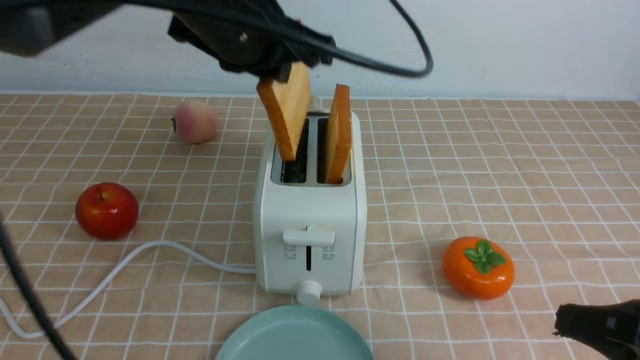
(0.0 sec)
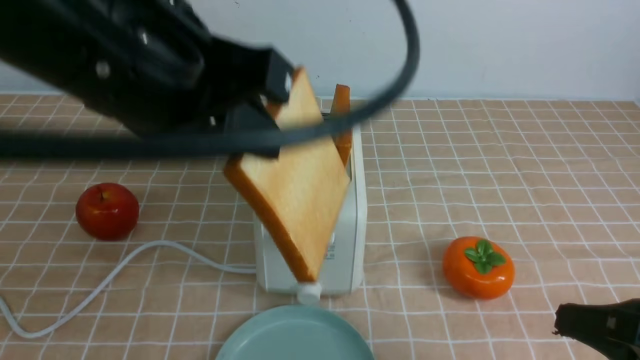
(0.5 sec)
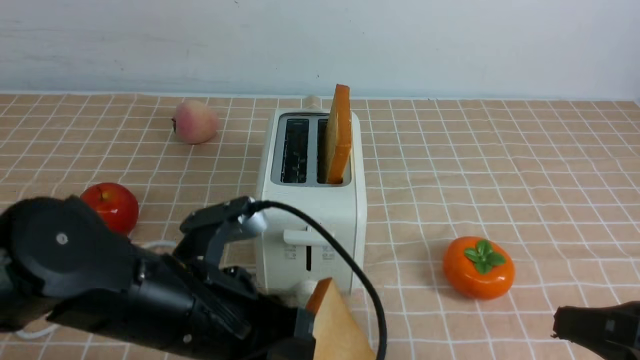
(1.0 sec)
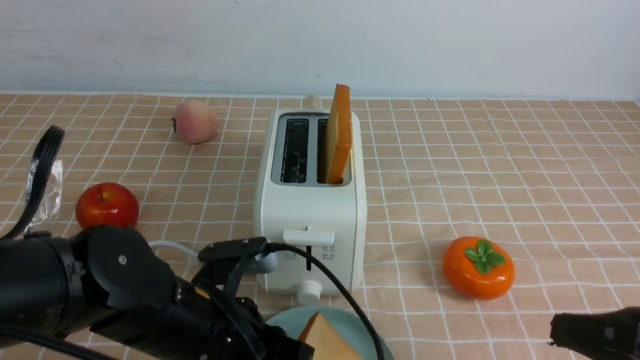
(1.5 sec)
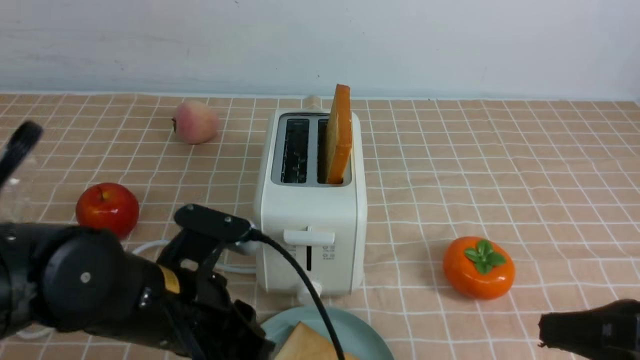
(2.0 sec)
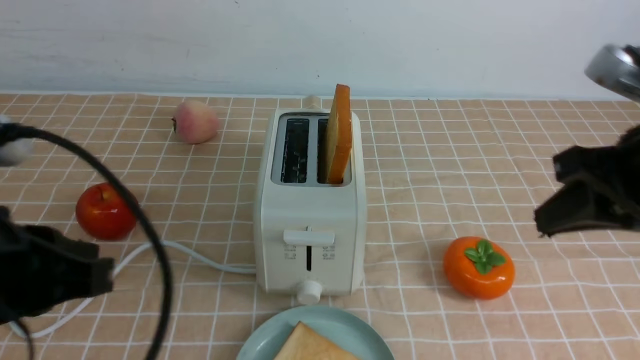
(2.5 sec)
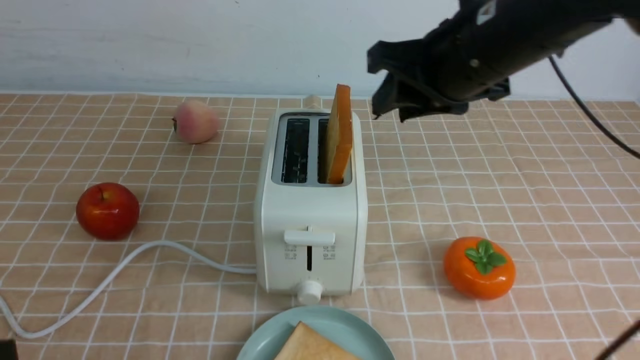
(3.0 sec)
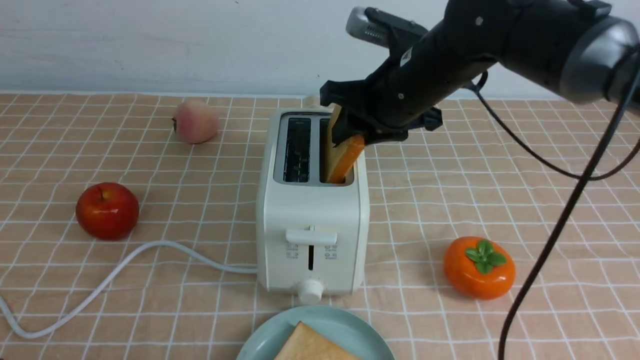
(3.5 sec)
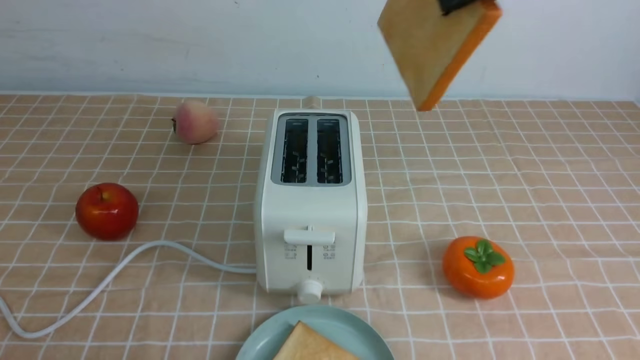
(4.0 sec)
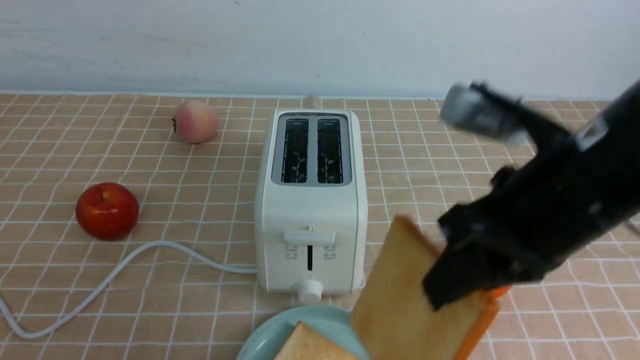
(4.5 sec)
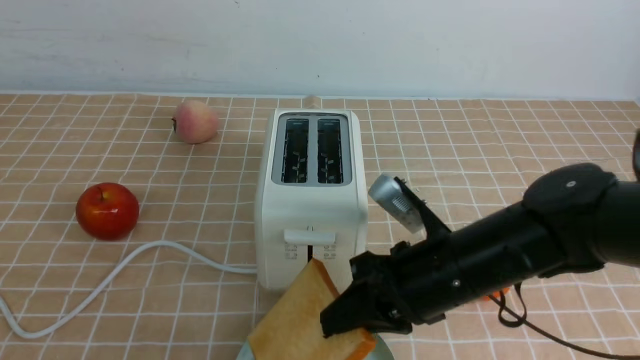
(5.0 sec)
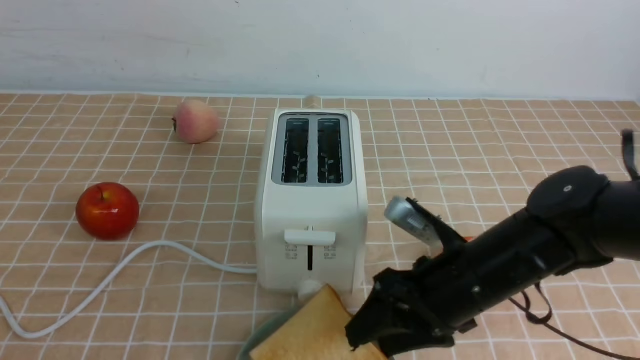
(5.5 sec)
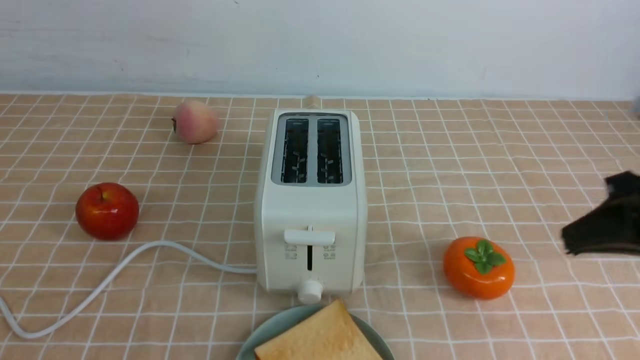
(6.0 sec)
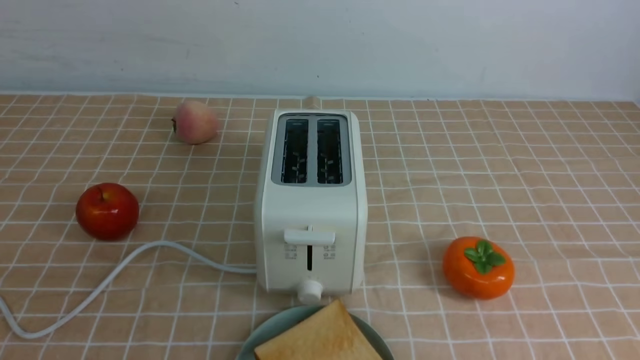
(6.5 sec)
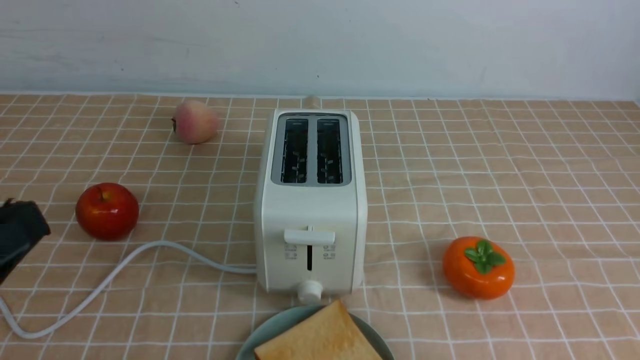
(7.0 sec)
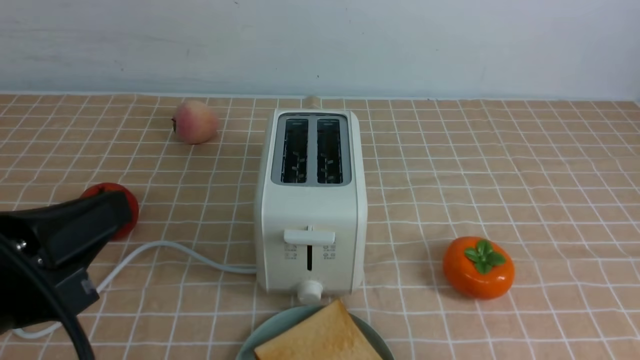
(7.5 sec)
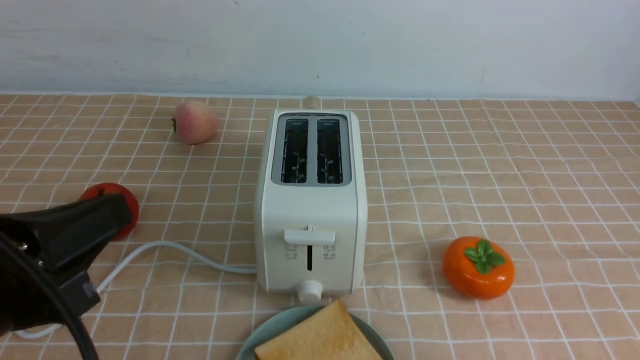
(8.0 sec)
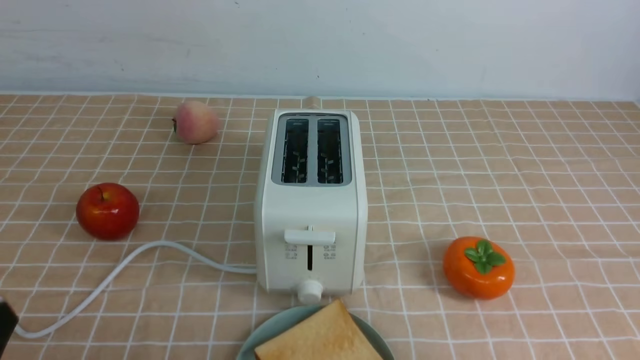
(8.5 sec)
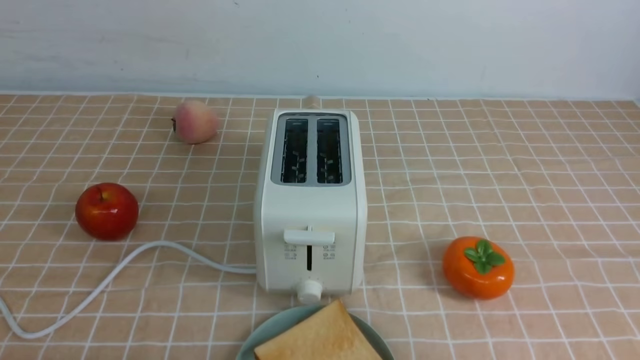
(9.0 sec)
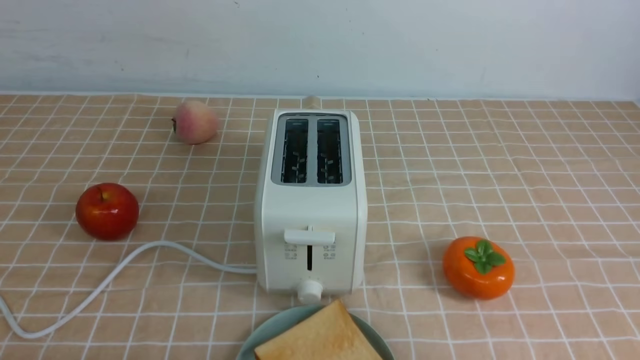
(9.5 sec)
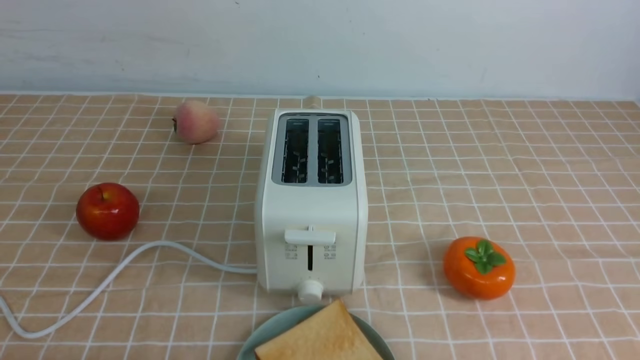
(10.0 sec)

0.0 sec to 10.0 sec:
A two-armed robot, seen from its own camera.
Task of the whole recording: take toasted bread from bread machine on light coffee tablecloth place on plate.
Step, 0.5 sec to 1.5 sec: use the left arm to put a slice of bread into the empty plate.
Step, 2.0 sec to 3.5 sec: use the right arm to take out a slice of bread.
Step, 4.0 sec to 5.5 sec: use the right arm to put a slice of bread into the plate.
0.0 sec to 2.0 sec: The left gripper moves downward and backward, about 20 cm.
2.0 sec to 4.0 sec: The right gripper goes about 25 cm upward, forward and to the left, and opens and closes again. Meanwhile the left gripper heads backward and to the left, covering about 20 cm, and closes its fingers.
4.0 sec to 6.0 sec: The right gripper travels downward and to the right by roughly 20 cm, and opens and closes again.
6.0 sec to 8.0 sec: The left gripper goes approximately 5 cm forward and to the right. Meanwhile the right gripper goes about 15 cm backward.
8.0 sec to 10.0 sec: The left gripper goes some 15 cm downward.

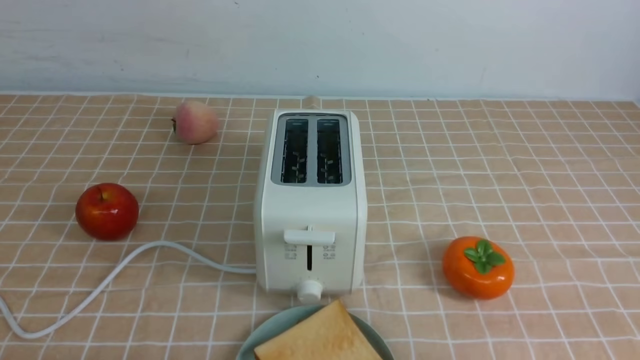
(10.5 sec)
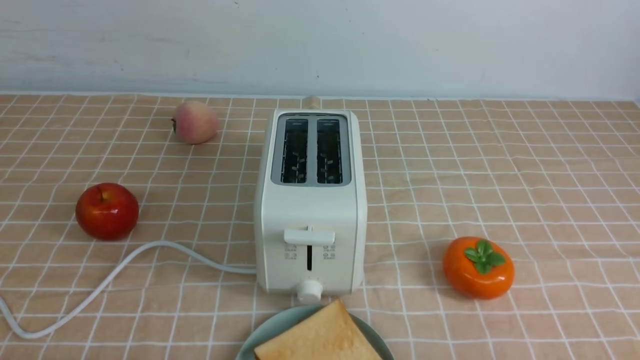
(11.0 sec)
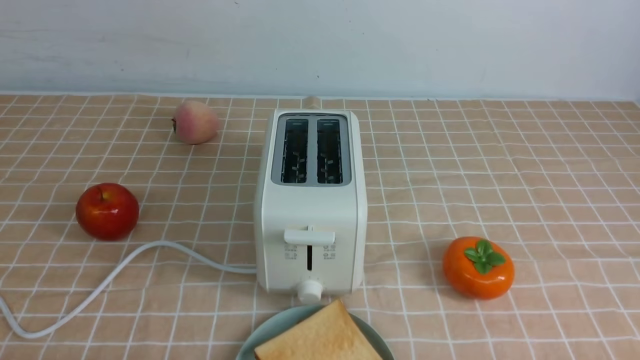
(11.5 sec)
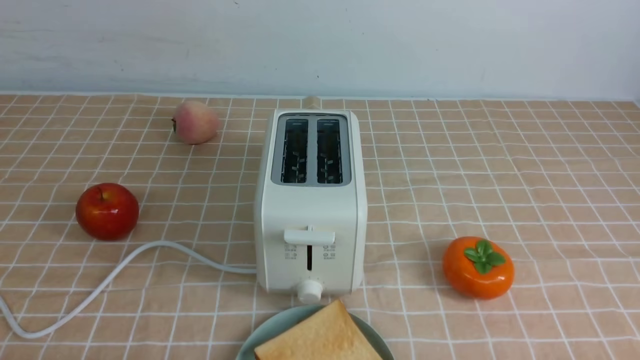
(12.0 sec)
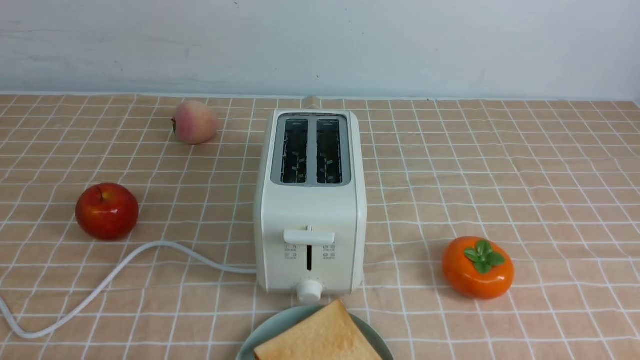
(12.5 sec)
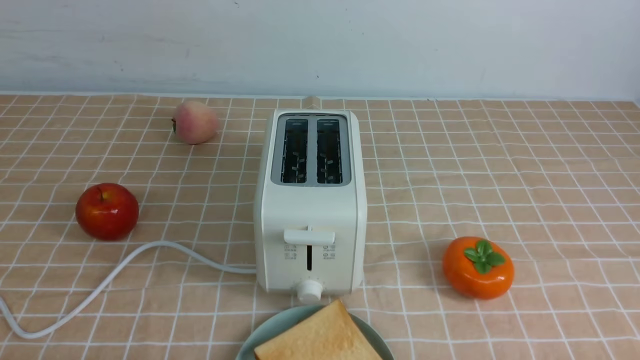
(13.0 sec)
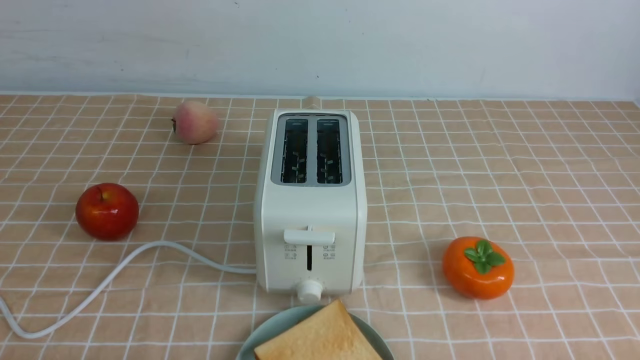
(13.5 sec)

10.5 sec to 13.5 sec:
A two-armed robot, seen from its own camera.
Task of the whole recording: take toasted bread from bread machine on light coffee tablecloth place on plate.
12.0 sec to 13.5 sec: Both grippers stay put.

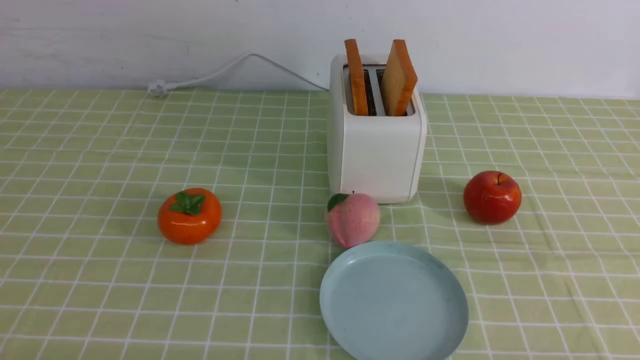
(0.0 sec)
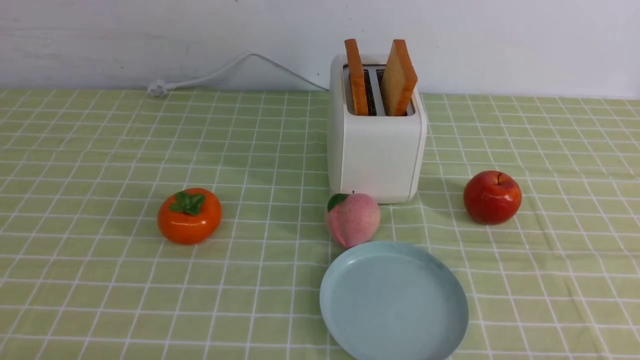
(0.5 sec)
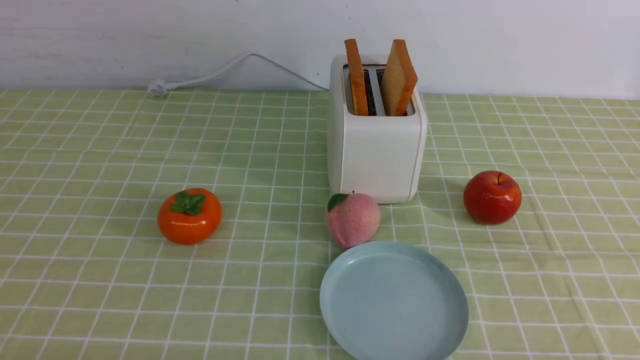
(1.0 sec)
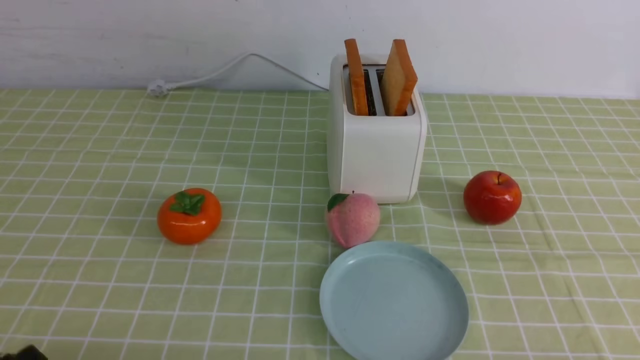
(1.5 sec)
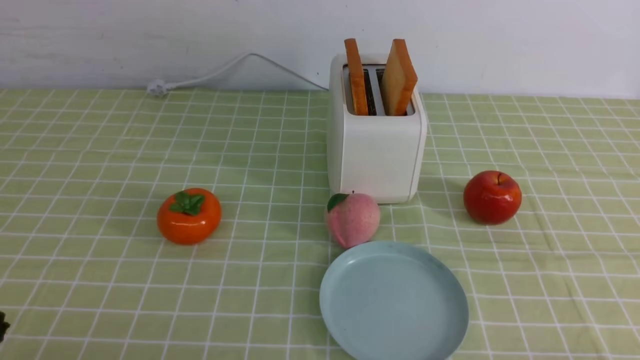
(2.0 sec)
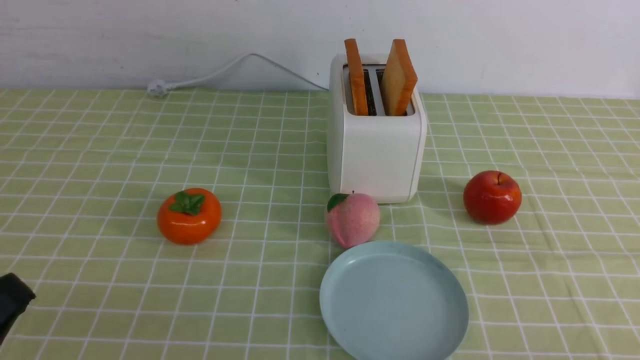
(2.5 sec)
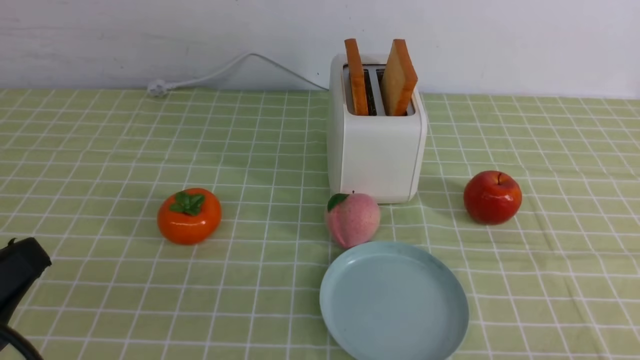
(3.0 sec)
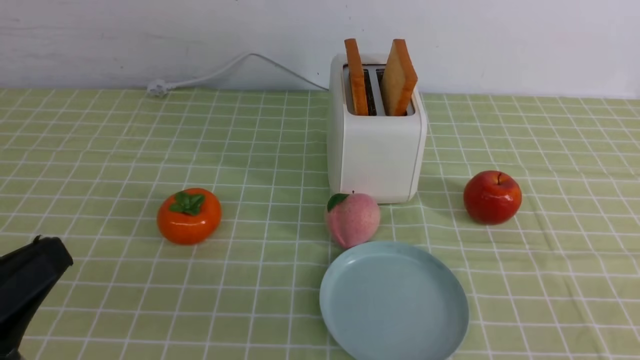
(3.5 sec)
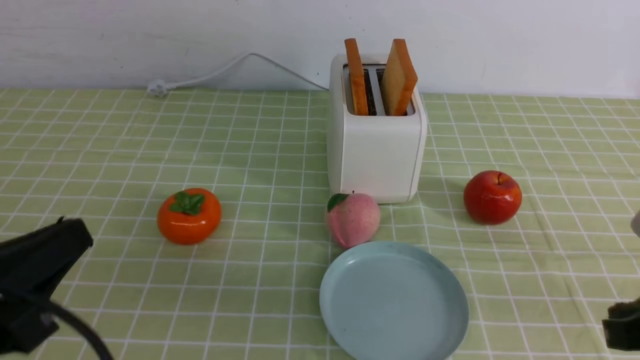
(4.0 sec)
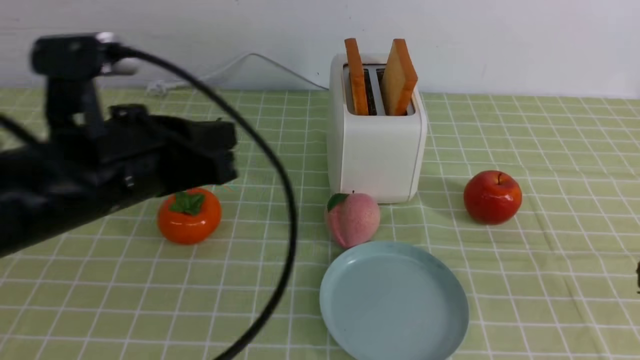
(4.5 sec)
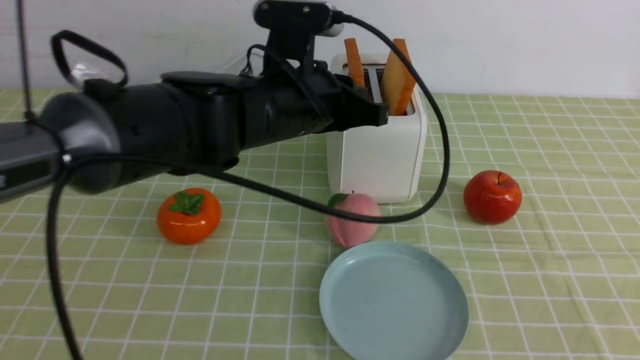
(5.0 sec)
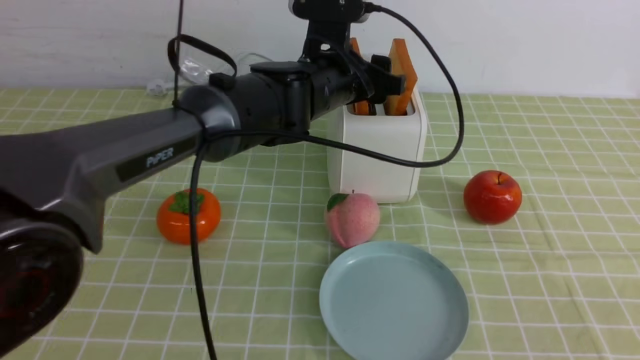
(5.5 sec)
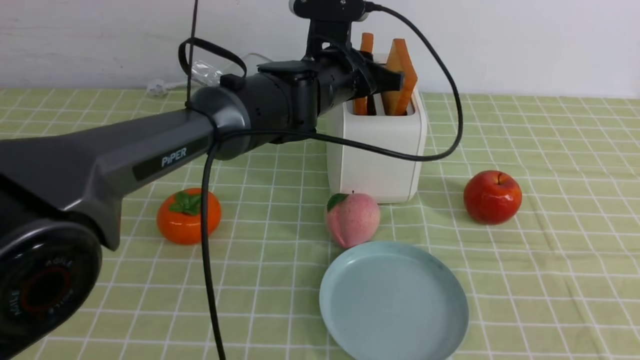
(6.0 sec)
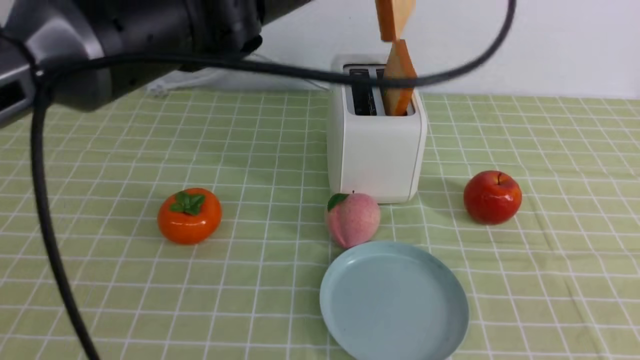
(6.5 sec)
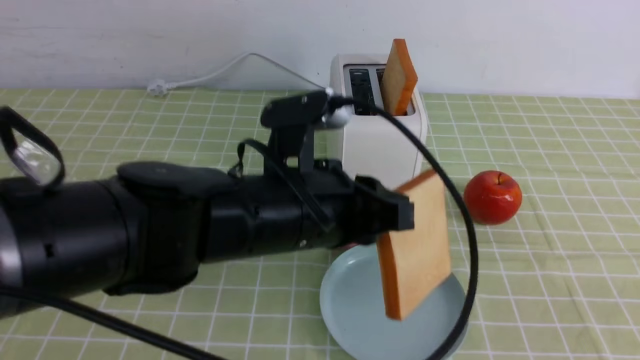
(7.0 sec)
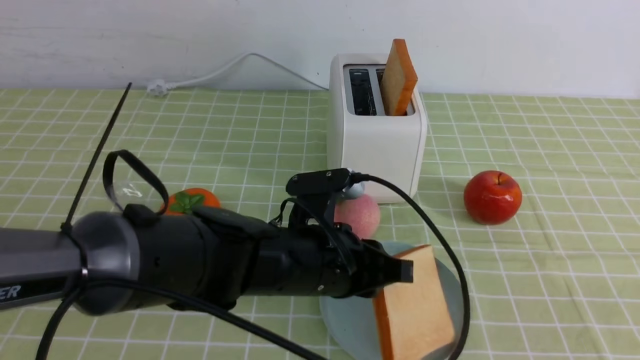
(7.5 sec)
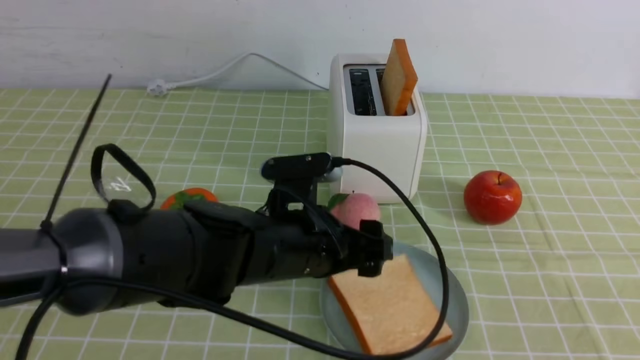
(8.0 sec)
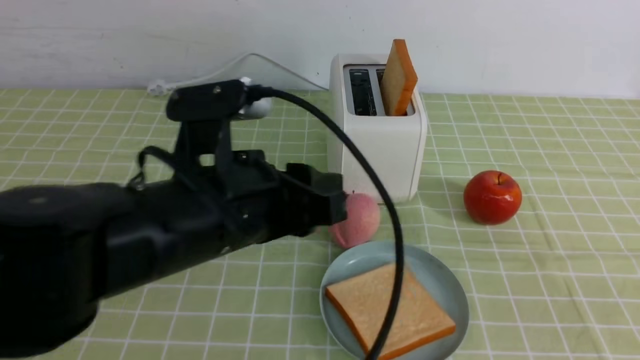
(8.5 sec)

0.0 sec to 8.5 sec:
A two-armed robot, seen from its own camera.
Task of the whole recording: take toasted bread from bread machine on green coffee tablecloth place on plate.
Step, 0.0 sec to 6.0 sec: use the left arm to take out a slice of bread.
2.0 sec to 4.0 sec: Both grippers travel together upward and forward, approximately 10 cm. The right gripper closes its fingers.
4.0 sec to 6.5 sec: The left gripper moves forward, to the right and upward, approximately 35 cm, and opens and closes again; the right gripper heads backward, covering some 10 cm.
6.5 sec to 8.5 sec: The left gripper heads backward, downward and to the left, covering approximately 20 cm, and opens, then closes once more.
